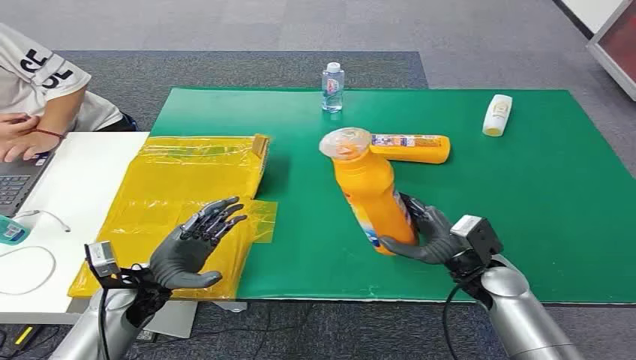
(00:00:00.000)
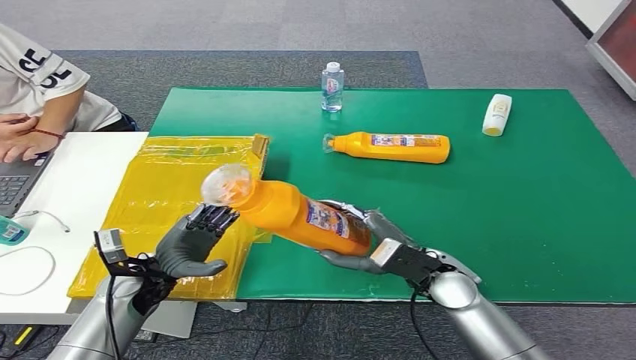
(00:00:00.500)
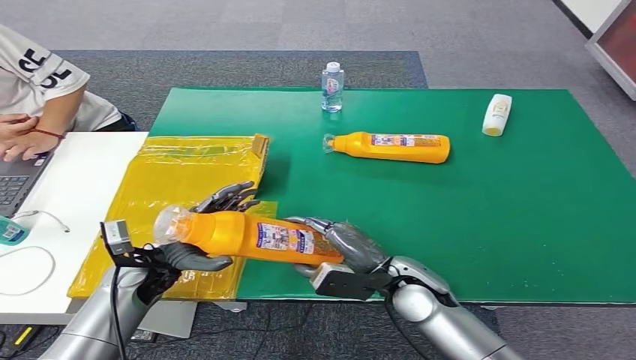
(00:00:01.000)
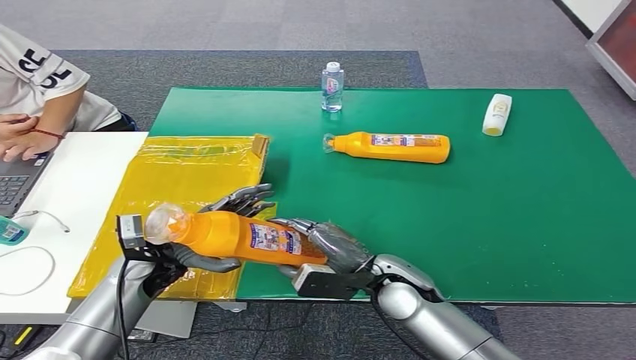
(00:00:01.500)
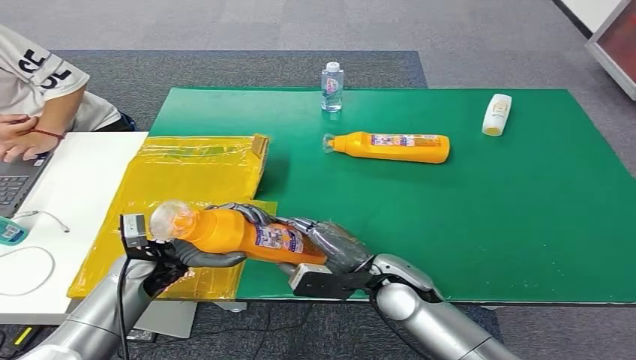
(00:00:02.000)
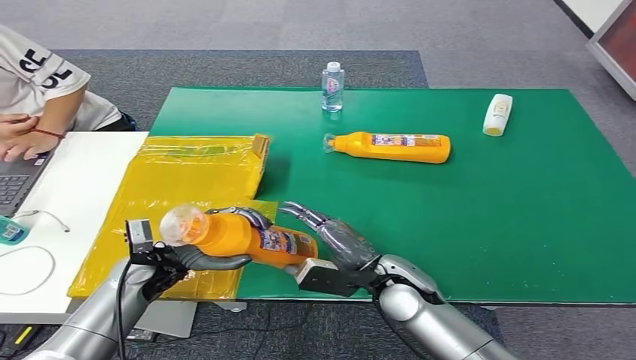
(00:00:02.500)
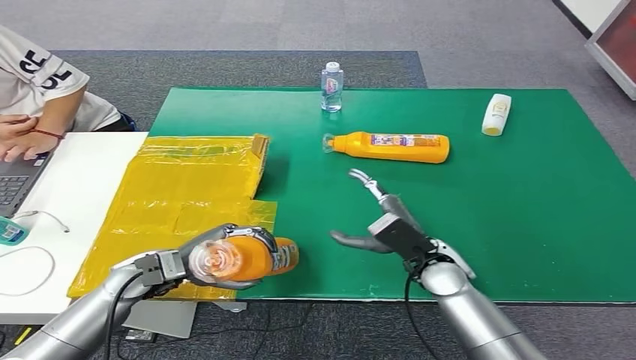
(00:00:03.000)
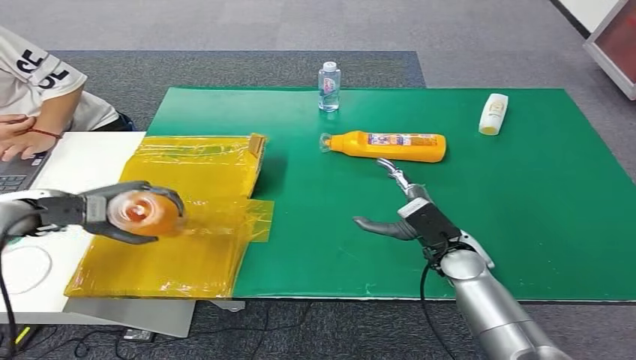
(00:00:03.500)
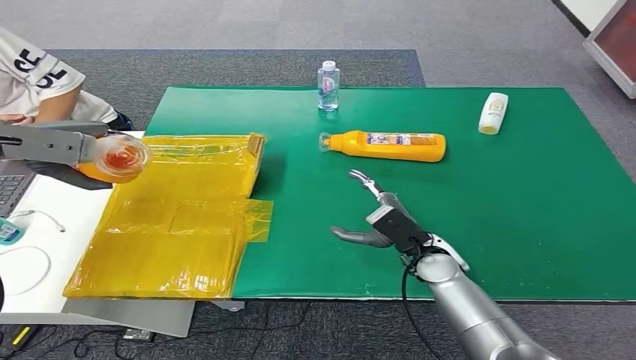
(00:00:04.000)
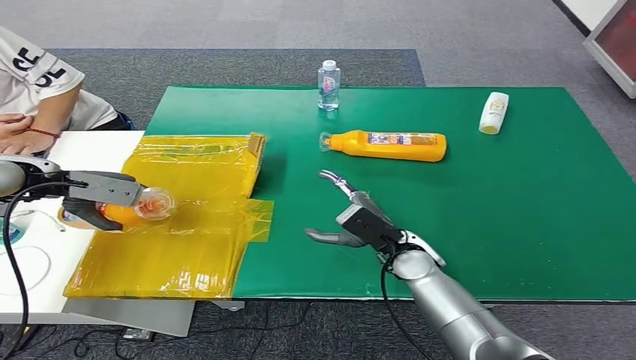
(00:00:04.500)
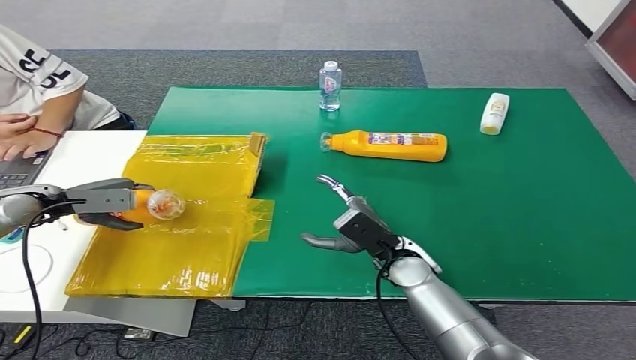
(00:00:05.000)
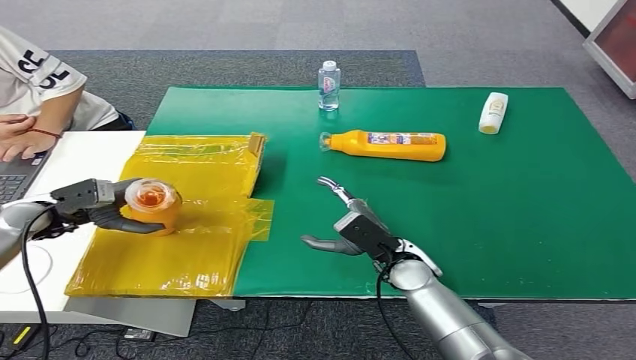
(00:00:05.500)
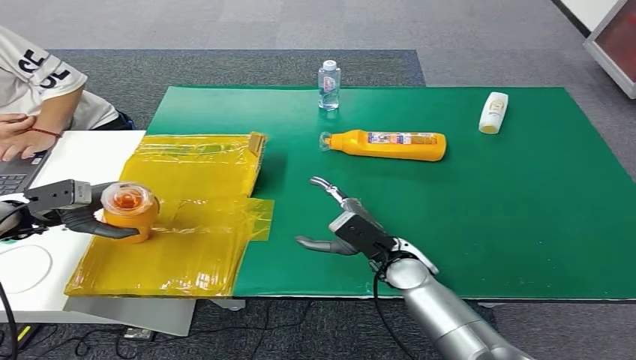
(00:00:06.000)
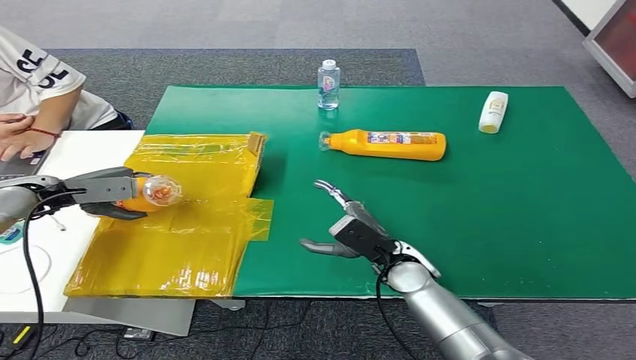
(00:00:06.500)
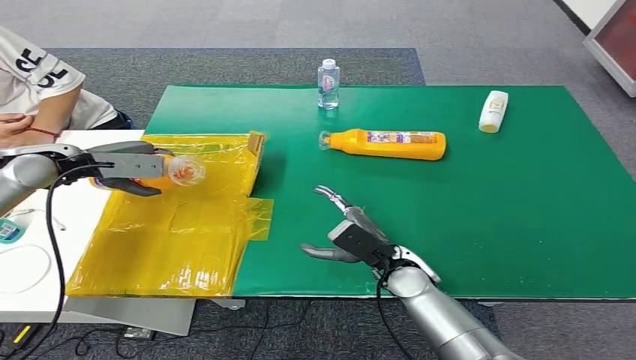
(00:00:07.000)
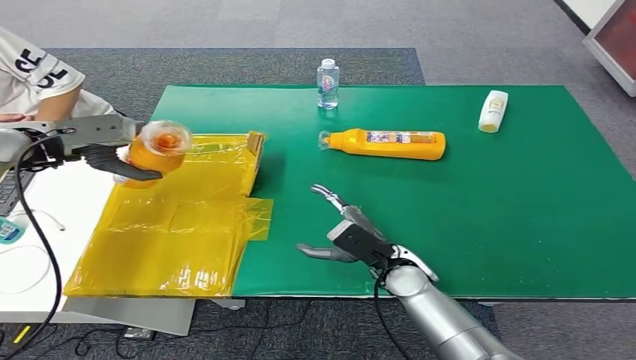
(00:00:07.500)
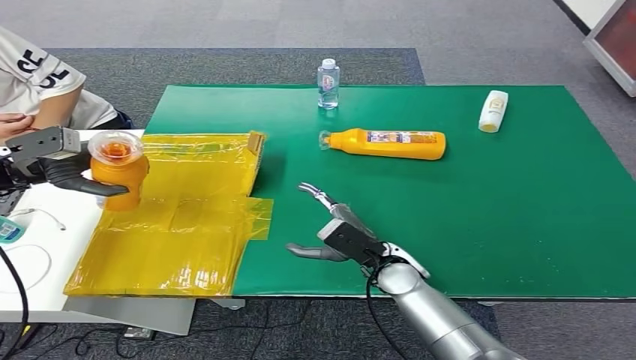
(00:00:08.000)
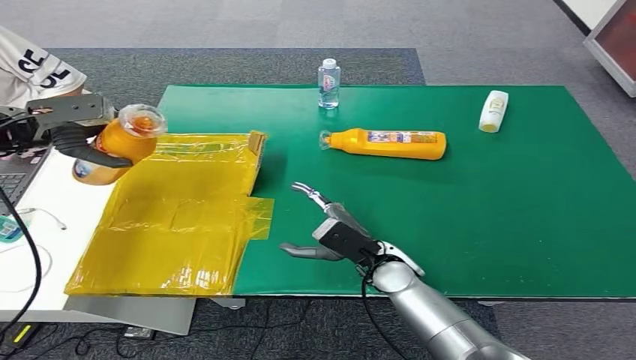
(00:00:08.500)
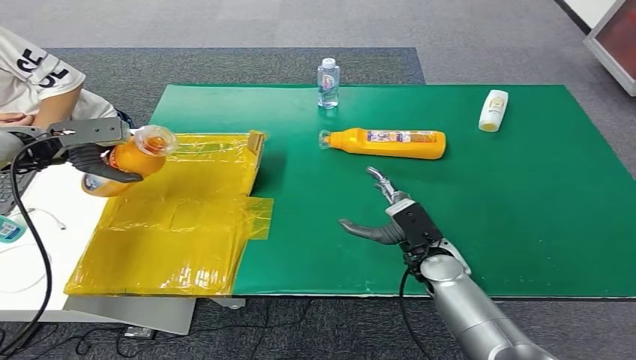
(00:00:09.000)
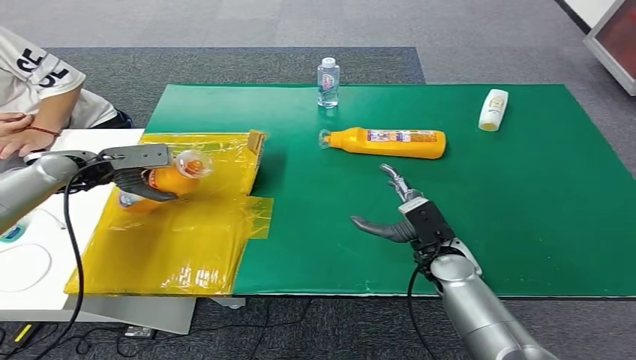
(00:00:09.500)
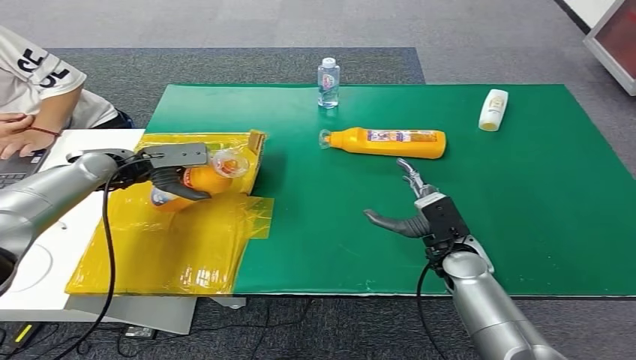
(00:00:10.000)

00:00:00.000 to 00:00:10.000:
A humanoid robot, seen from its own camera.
00:00:04.000 to 00:00:06.000: The right hand changes place by roughly 5 cm. The left hand heads downward, covering approximately 20 cm.
00:00:06.000 to 00:00:08.000: The left hand heads upward, covering about 10 cm.

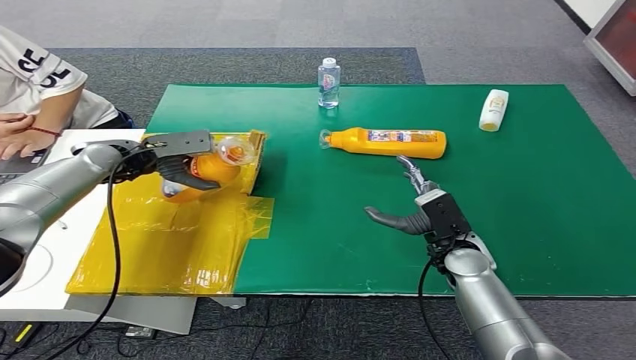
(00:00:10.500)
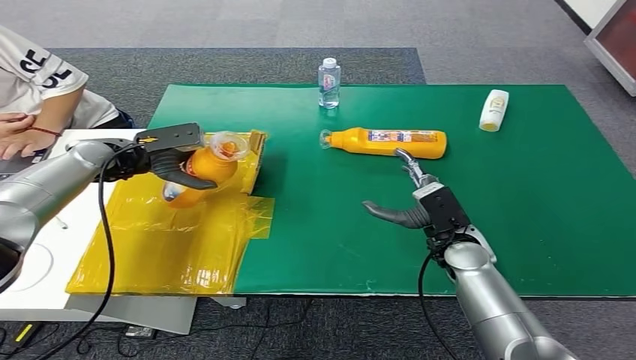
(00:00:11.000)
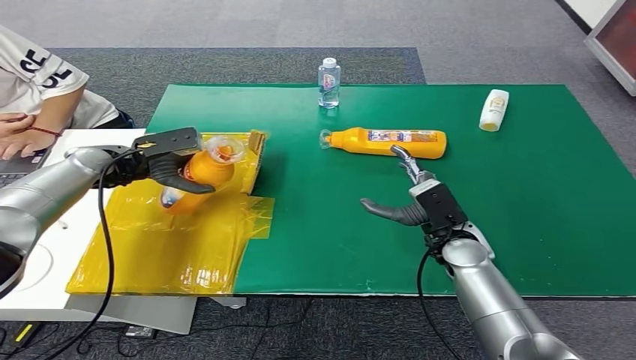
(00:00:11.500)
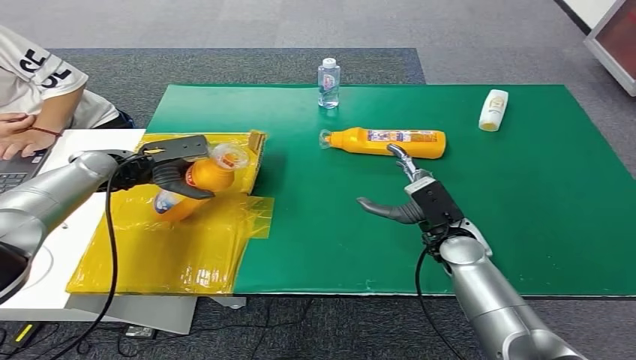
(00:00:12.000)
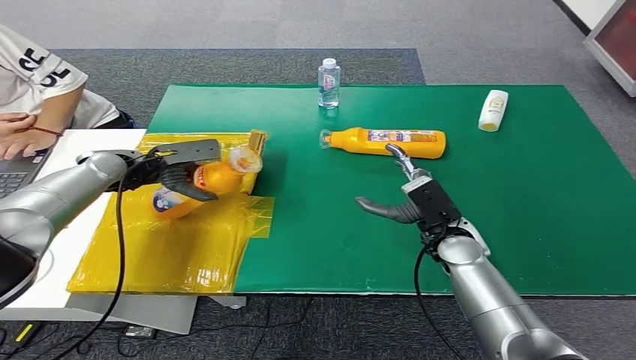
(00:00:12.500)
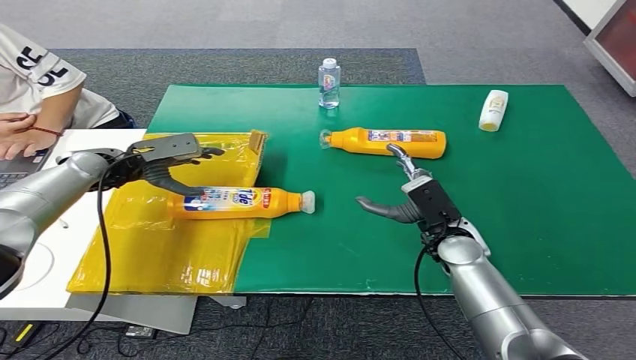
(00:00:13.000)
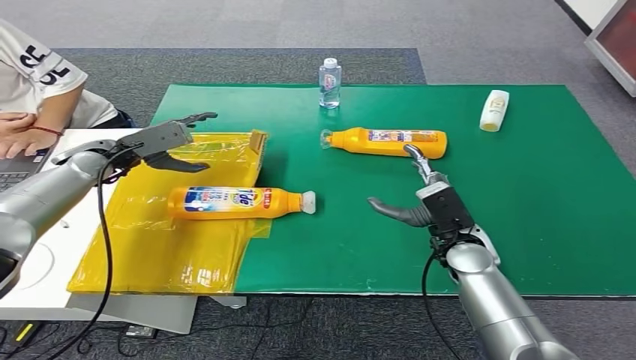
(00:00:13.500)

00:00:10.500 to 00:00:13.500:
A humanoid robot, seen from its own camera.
Step, 00:00:10.500 to 00:00:13.500: Turn the bottle to the front side.
00:00:10.500 to 00:00:12.000: There are only small adjustments of the hands.
